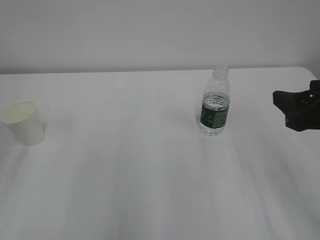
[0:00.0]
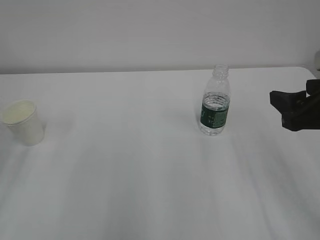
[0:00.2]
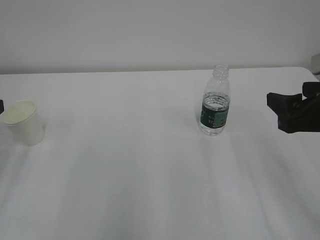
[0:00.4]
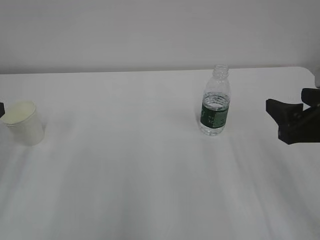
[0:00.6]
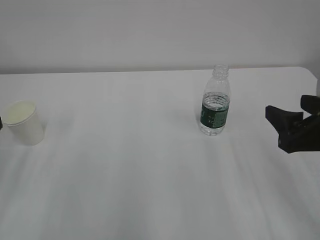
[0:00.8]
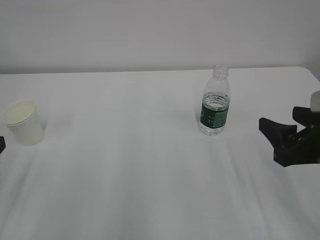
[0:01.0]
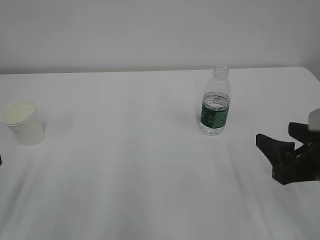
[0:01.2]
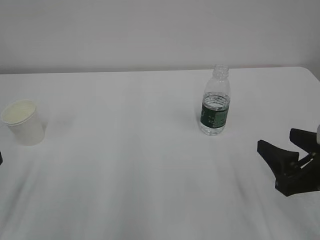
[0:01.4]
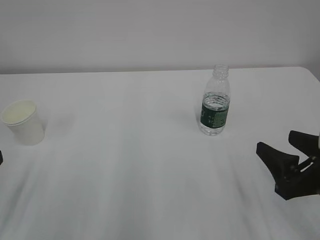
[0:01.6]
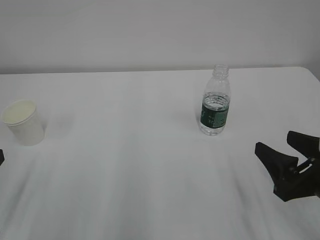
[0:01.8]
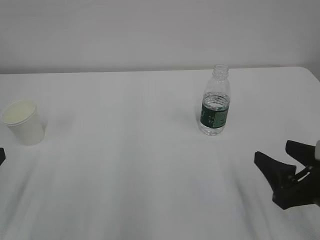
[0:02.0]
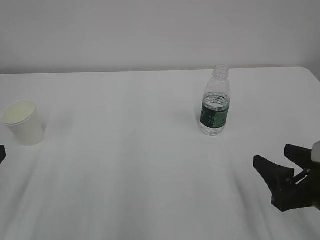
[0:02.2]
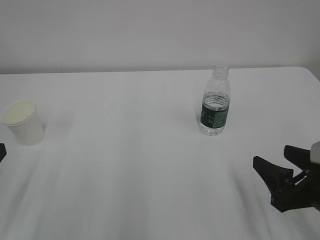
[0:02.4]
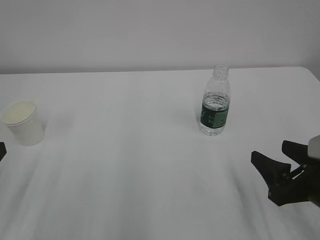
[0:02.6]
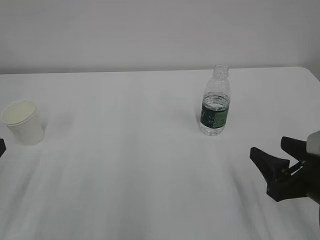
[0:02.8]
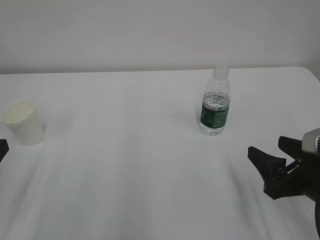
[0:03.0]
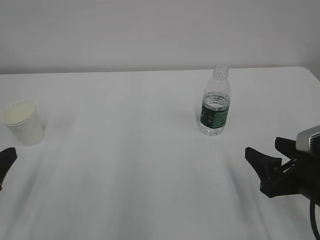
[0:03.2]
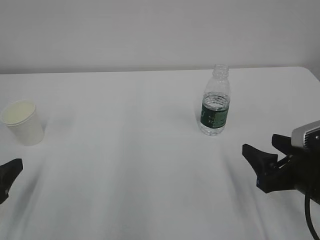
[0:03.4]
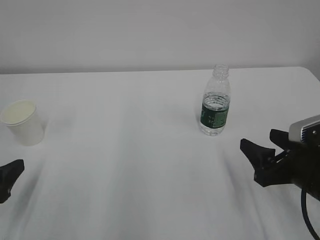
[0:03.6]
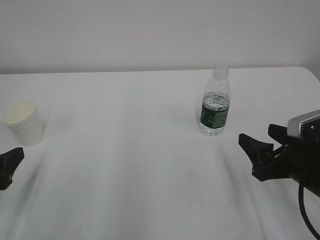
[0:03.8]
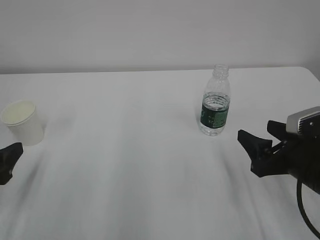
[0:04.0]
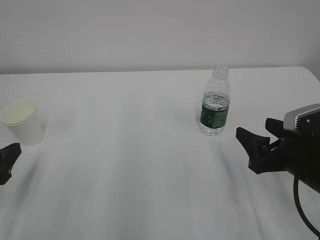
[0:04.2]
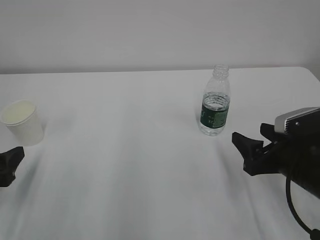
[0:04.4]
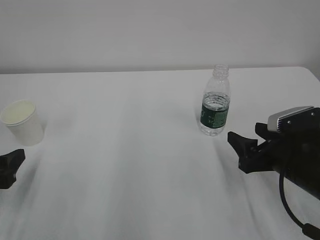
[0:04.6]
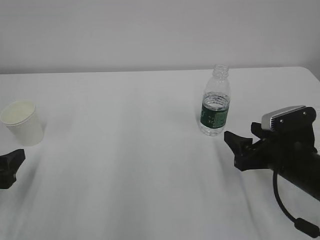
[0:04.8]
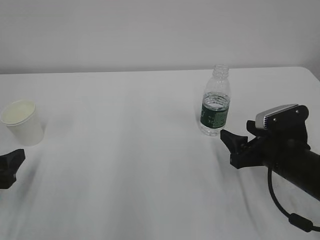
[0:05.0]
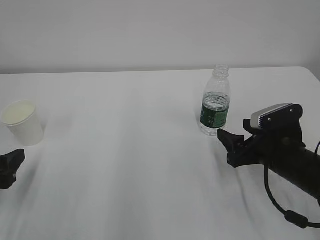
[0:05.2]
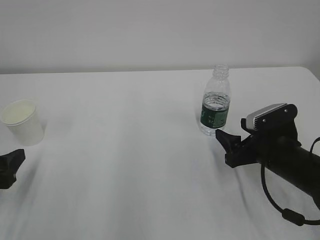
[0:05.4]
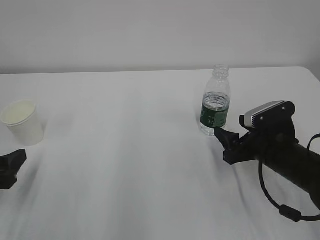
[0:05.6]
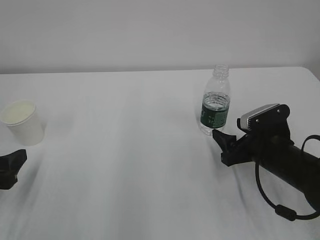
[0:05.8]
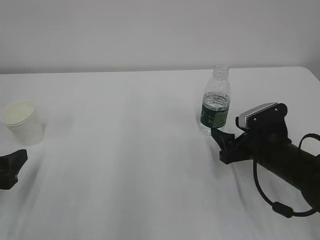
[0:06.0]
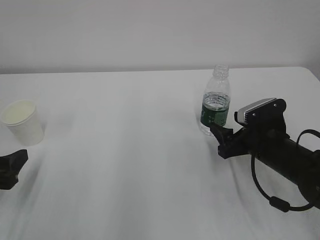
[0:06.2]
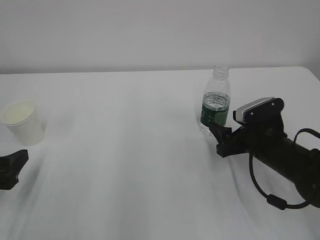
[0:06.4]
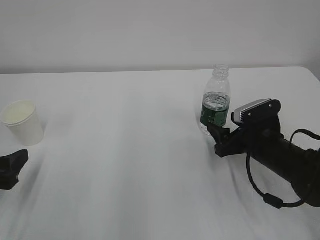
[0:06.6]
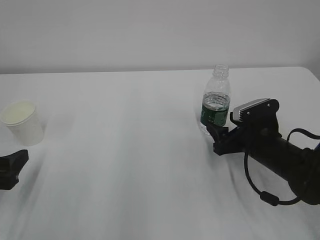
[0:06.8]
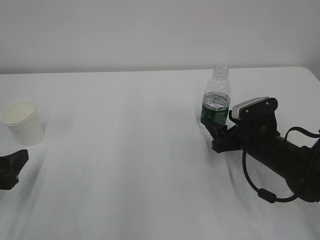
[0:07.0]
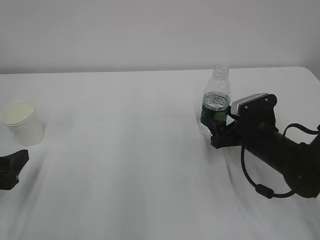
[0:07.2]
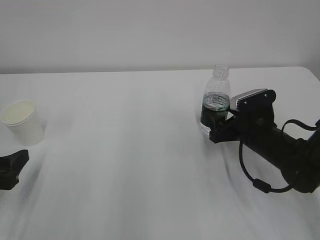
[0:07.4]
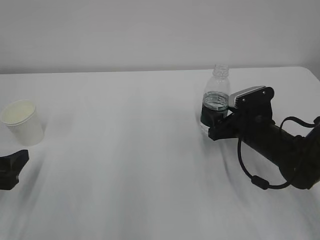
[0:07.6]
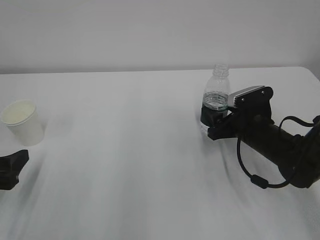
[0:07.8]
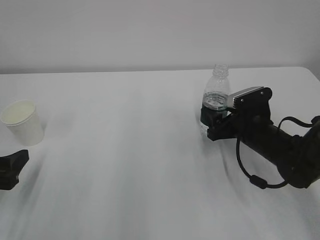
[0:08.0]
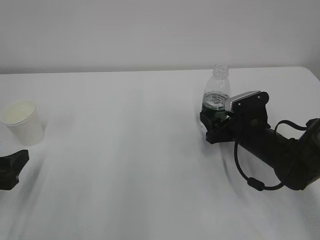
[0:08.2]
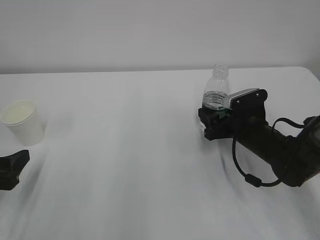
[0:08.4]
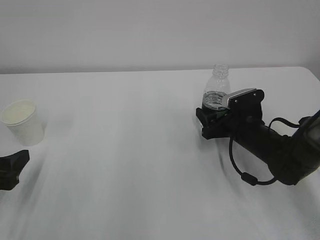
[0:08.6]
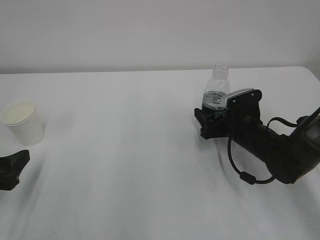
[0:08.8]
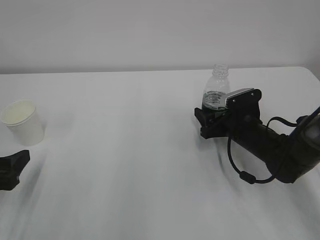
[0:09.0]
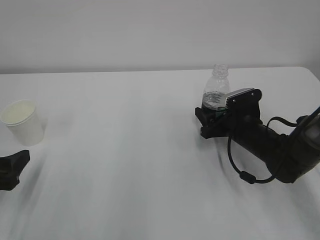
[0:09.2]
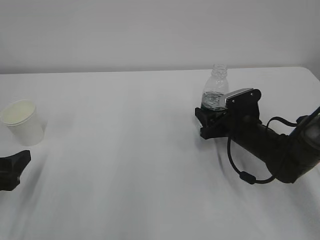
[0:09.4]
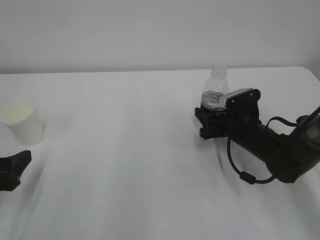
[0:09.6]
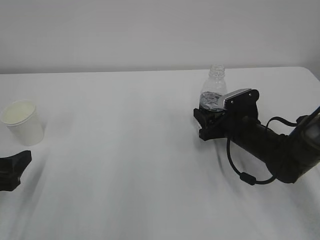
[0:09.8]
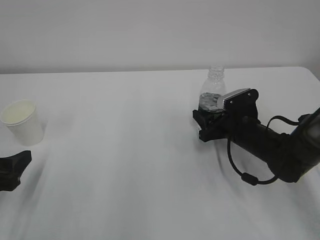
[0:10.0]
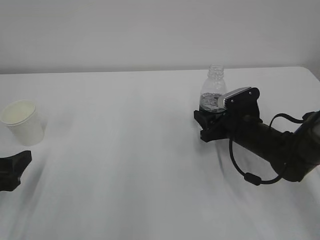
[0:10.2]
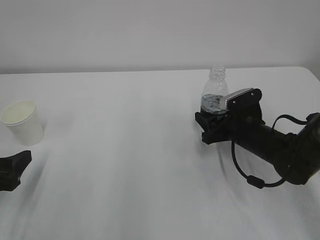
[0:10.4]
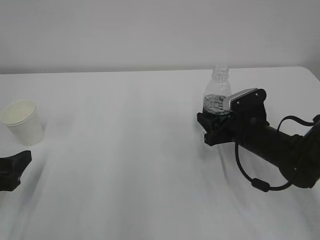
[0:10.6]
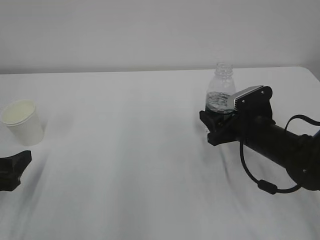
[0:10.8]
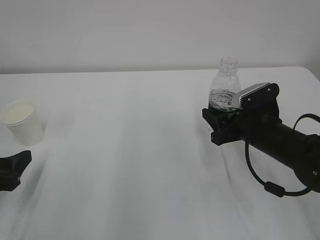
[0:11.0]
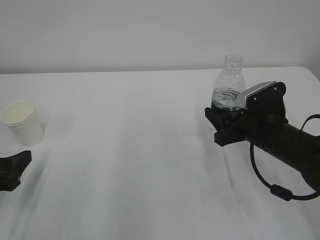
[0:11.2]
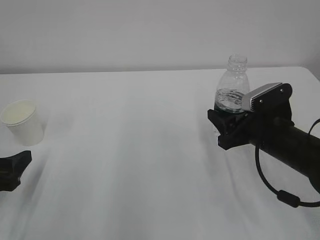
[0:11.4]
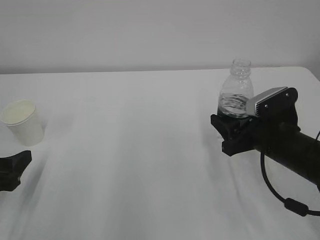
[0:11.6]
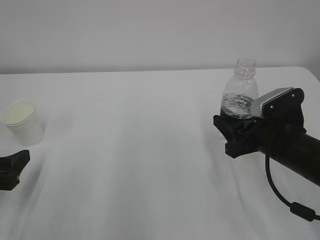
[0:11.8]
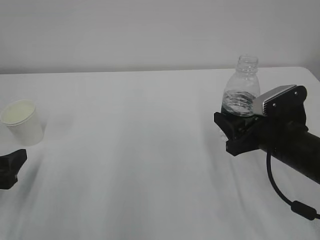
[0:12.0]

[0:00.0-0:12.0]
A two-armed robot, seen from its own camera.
0:00.0 to 0:01.6: The right gripper heads downward, covering some 10 cm.
0:01.6 to 0:03.0: The grippers move only a little.
0:03.0 to 0:04.4: The left gripper ends up about 5 cm from where it was.
0:04.4 to 0:06.0: The right gripper goes roughly 5 cm forward.
0:06.0 to 0:07.6: The right gripper ends up roughly 5 cm from where it was.
0:07.6 to 0:09.0: The grippers make only small movements.
0:09.0 to 0:10.4: The right gripper closes up.
0:10.4 to 0:12.0: The right gripper goes roughly 10 cm backward and upward.

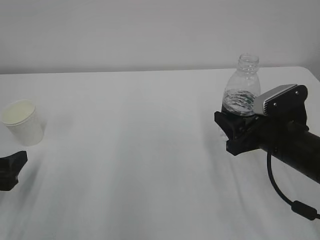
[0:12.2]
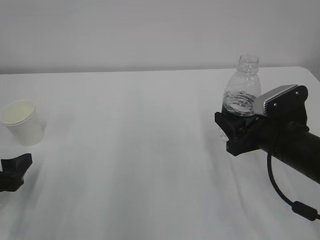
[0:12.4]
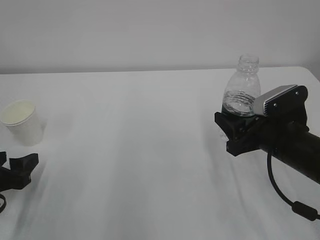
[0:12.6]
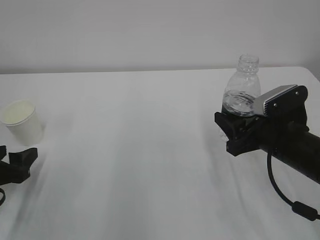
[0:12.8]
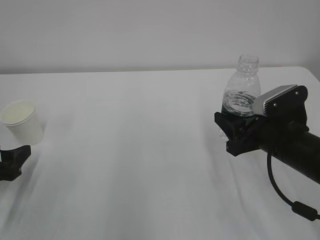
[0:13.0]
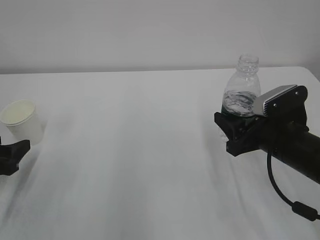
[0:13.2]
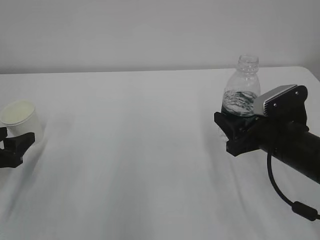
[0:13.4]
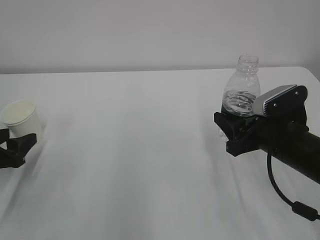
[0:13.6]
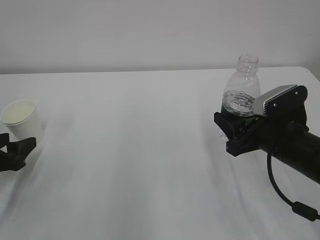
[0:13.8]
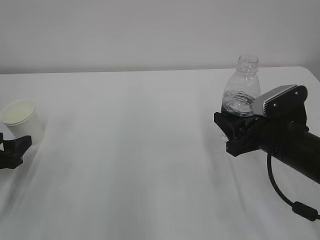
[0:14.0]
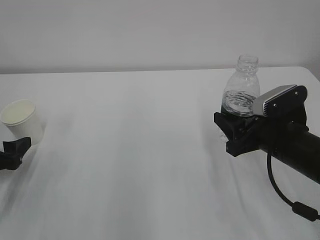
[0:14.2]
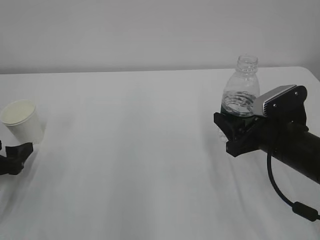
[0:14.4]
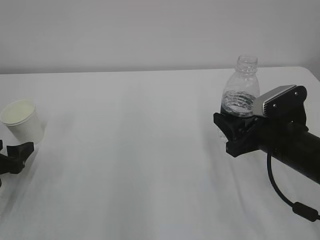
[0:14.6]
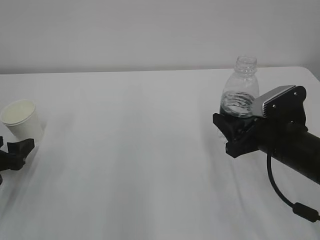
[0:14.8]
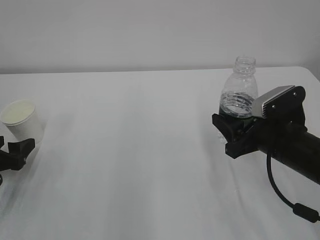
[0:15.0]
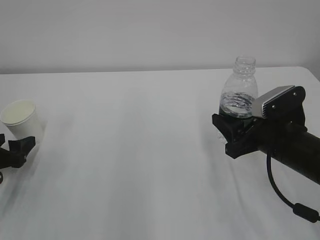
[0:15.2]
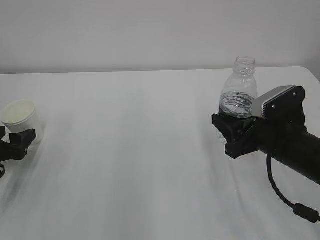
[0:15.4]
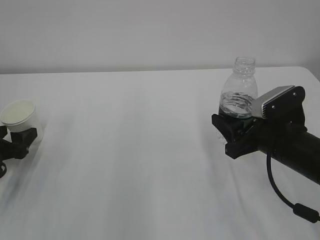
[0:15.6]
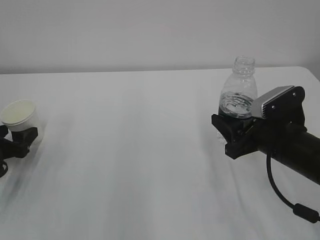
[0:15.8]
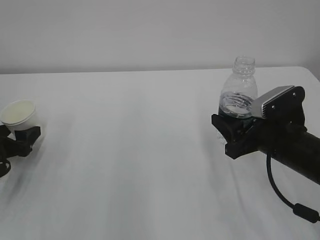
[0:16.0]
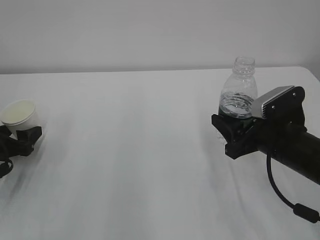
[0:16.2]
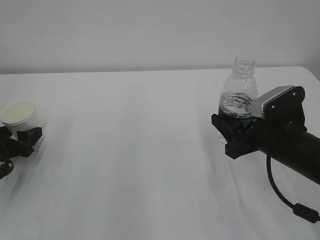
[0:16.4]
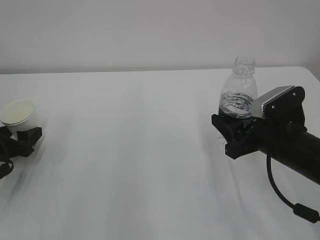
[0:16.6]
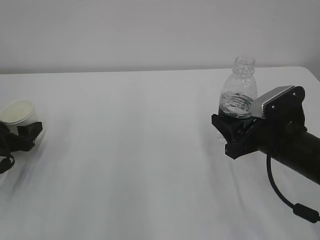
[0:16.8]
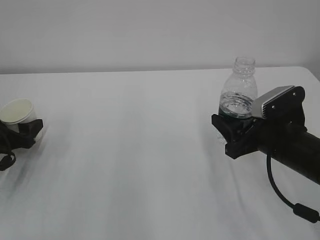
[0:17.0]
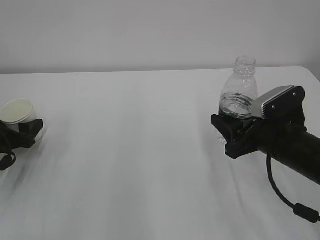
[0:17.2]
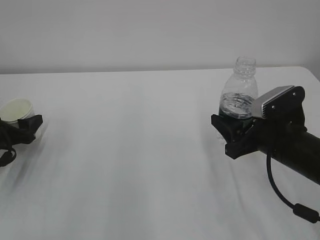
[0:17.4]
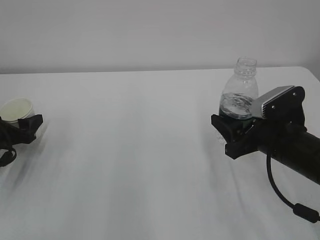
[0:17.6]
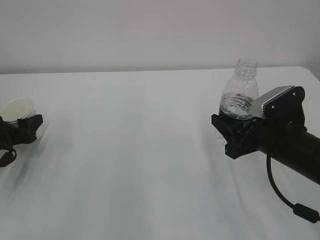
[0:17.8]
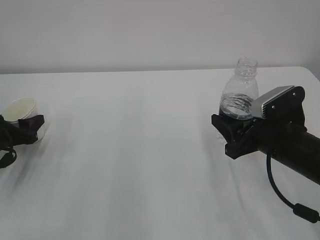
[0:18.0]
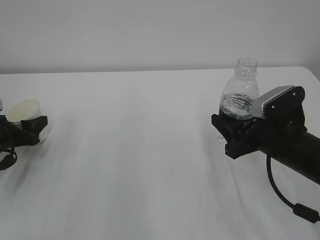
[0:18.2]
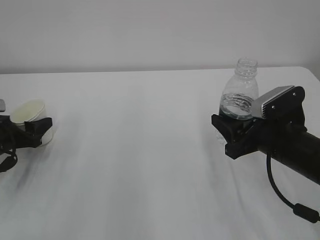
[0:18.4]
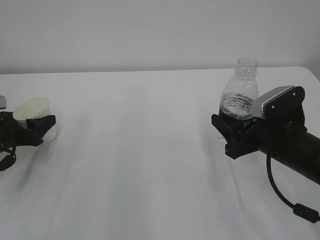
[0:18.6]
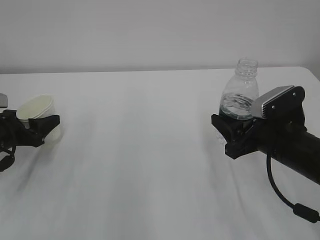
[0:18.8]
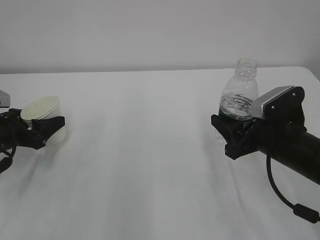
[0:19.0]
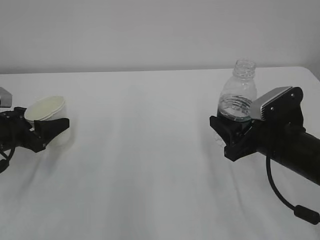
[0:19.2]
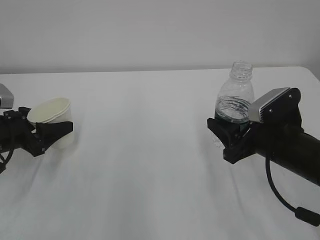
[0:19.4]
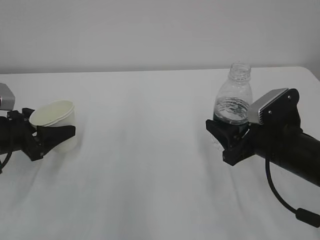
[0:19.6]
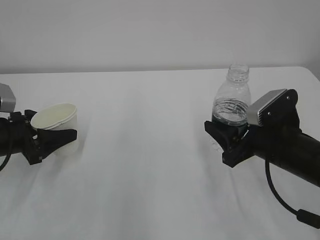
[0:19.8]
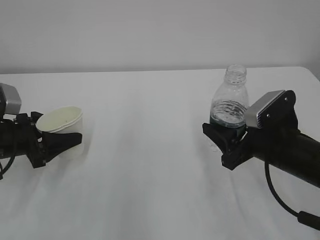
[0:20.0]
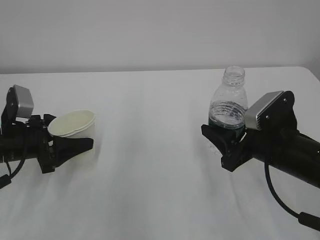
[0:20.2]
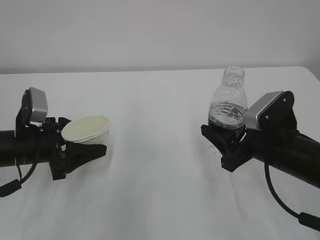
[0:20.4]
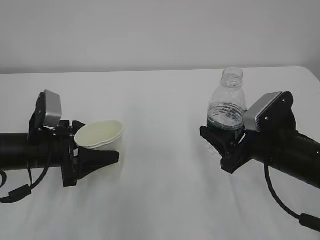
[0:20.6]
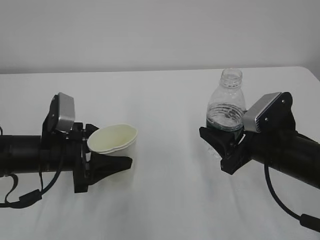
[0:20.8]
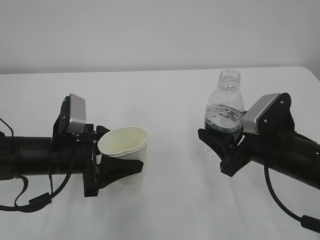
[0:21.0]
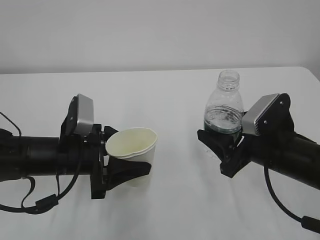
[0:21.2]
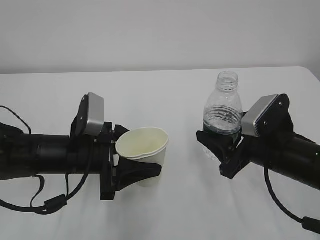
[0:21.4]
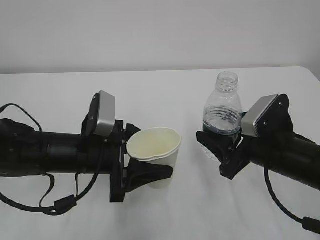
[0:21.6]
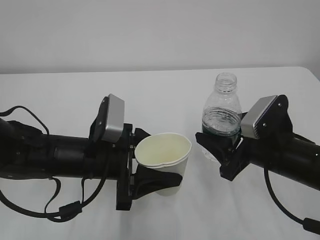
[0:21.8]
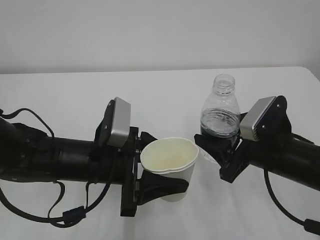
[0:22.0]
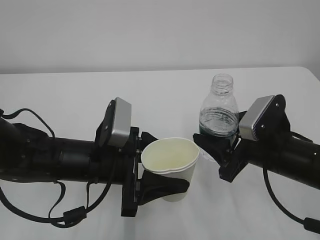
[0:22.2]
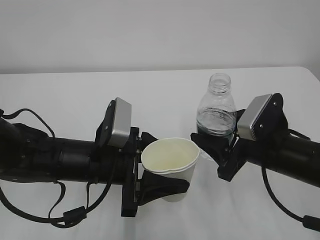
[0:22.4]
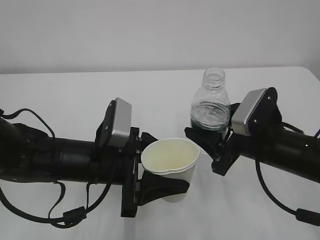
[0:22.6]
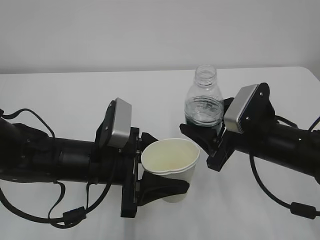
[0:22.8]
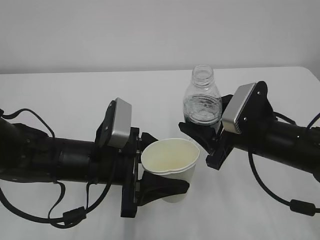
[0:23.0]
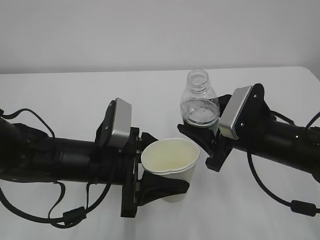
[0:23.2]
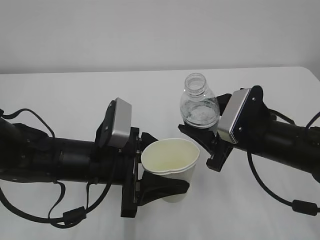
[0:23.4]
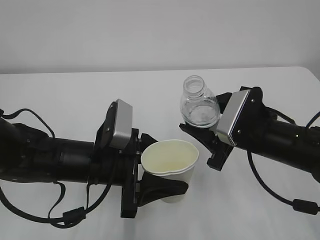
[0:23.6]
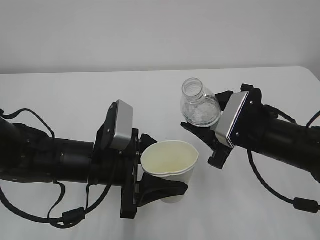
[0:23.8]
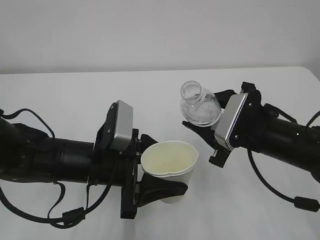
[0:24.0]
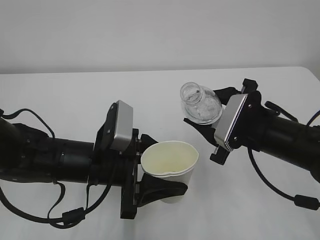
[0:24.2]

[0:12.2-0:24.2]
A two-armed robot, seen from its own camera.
0:12.2 to 0:13.8: The left gripper heads forward, covering some 5 cm.
0:15.2 to 0:16.6: The grippers stay close to where they were, moving slightly.
0:16.6 to 0:18.2: The left gripper closes up.
0:18.2 to 0:19.8: The left gripper moves about 5 cm.
0:19.8 to 0:21.2: The left gripper shifts about 15 cm to the right.
0:21.2 to 0:22.6: The left gripper goes roughly 5 cm to the right.
